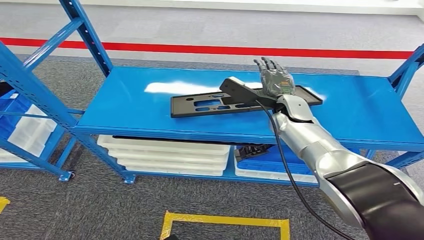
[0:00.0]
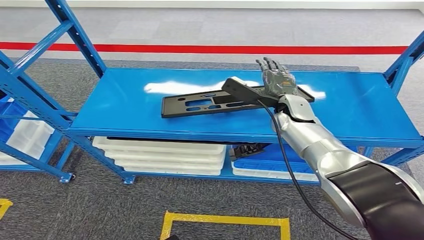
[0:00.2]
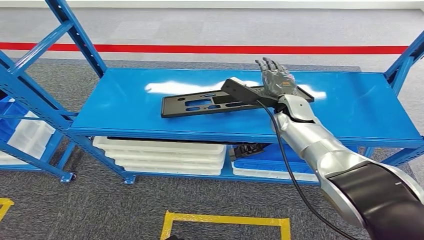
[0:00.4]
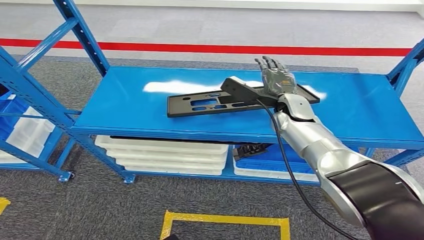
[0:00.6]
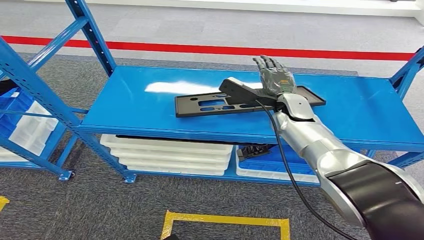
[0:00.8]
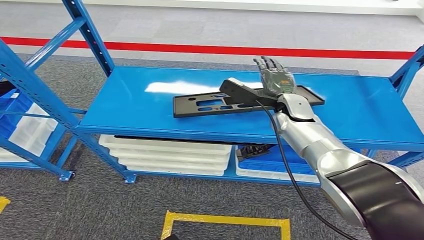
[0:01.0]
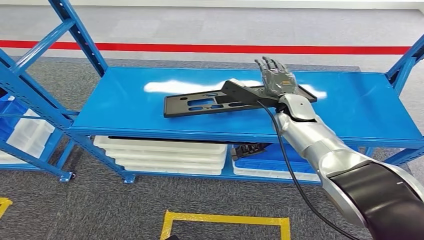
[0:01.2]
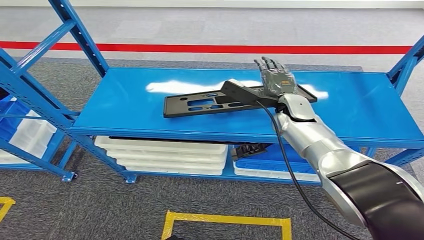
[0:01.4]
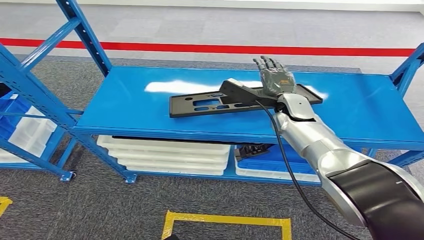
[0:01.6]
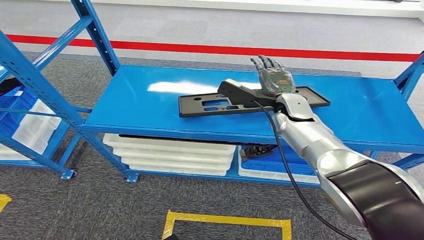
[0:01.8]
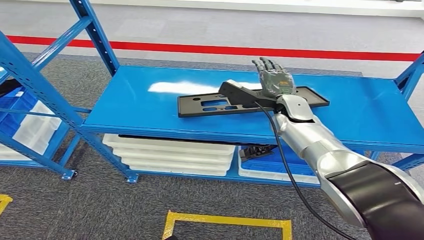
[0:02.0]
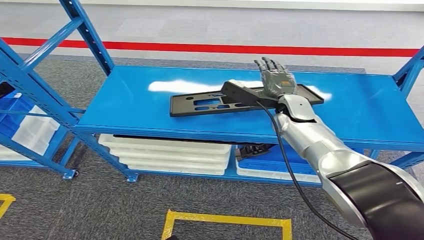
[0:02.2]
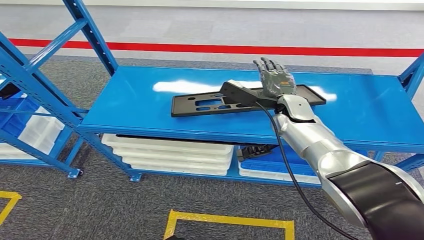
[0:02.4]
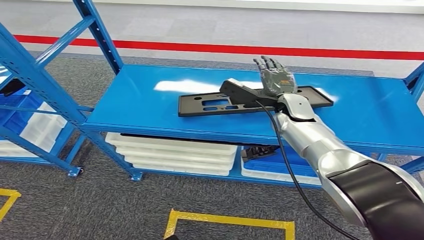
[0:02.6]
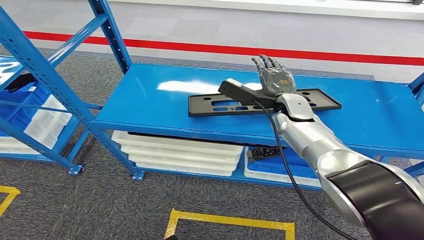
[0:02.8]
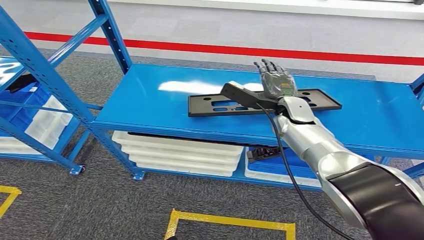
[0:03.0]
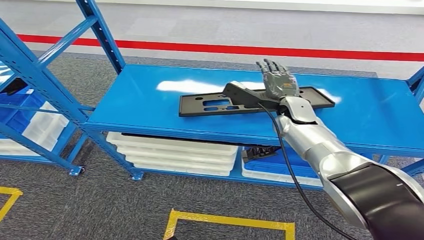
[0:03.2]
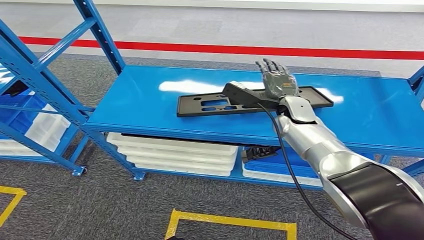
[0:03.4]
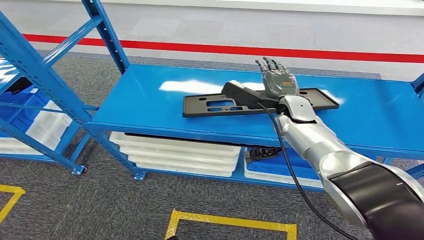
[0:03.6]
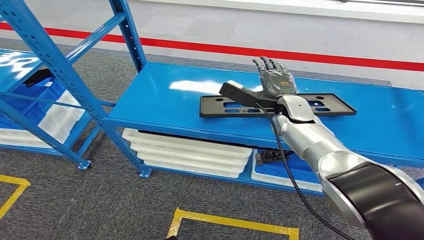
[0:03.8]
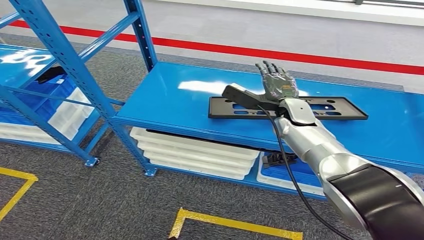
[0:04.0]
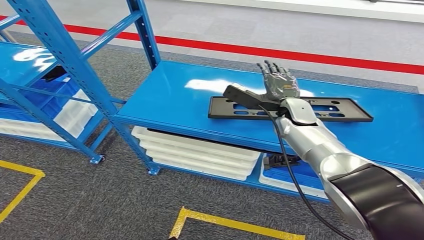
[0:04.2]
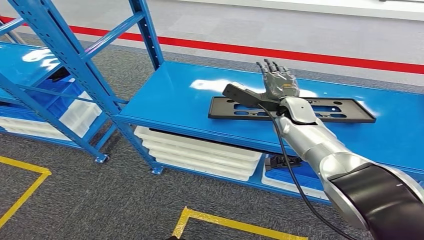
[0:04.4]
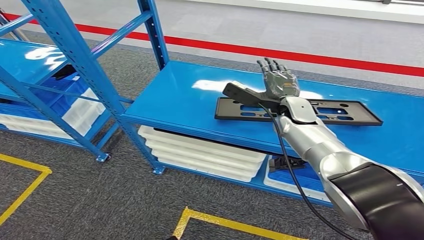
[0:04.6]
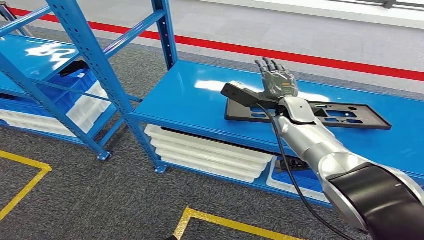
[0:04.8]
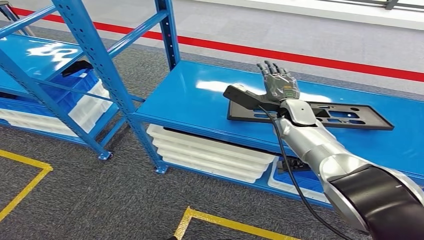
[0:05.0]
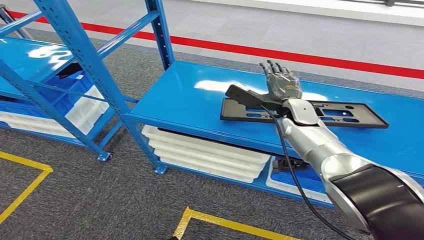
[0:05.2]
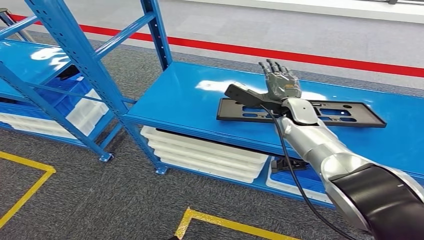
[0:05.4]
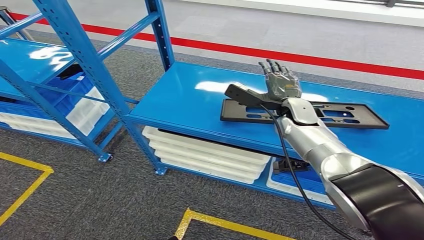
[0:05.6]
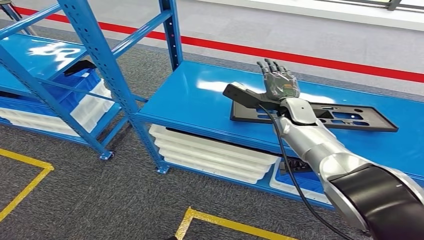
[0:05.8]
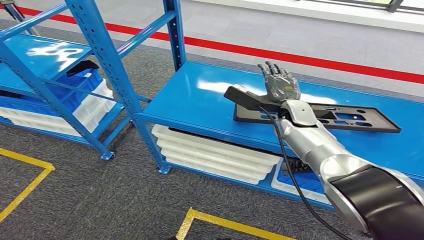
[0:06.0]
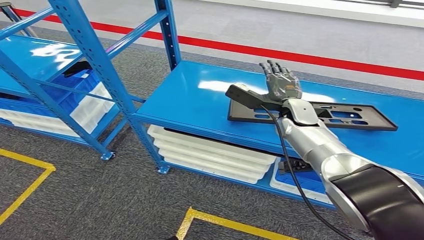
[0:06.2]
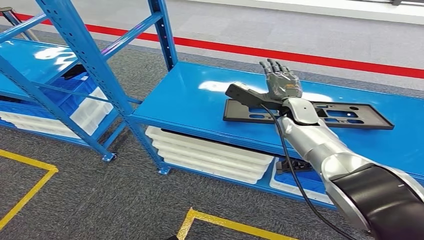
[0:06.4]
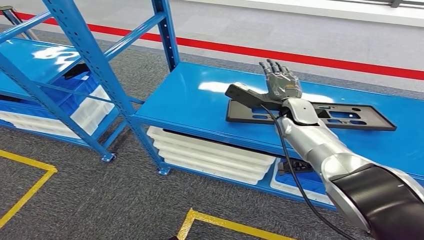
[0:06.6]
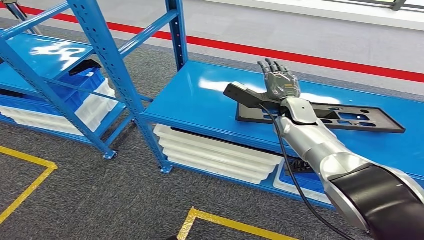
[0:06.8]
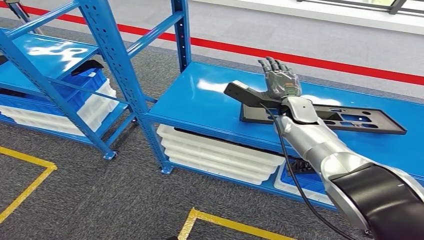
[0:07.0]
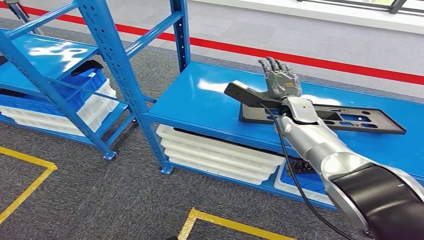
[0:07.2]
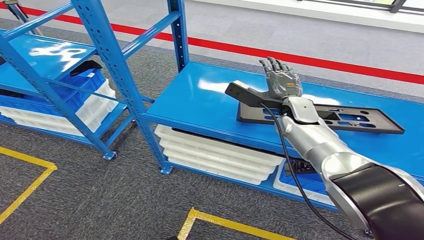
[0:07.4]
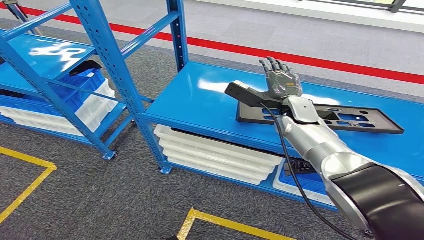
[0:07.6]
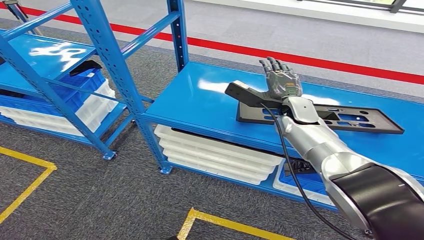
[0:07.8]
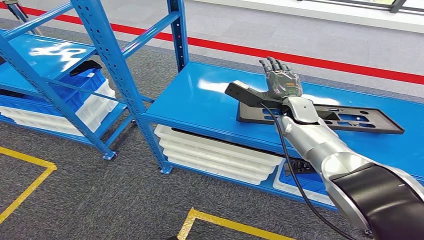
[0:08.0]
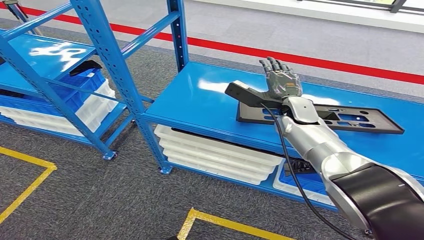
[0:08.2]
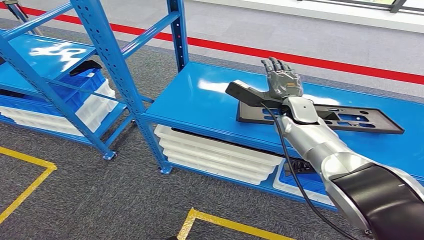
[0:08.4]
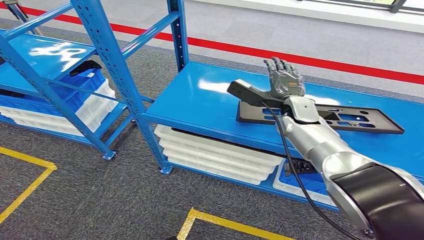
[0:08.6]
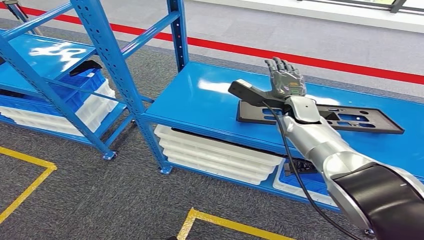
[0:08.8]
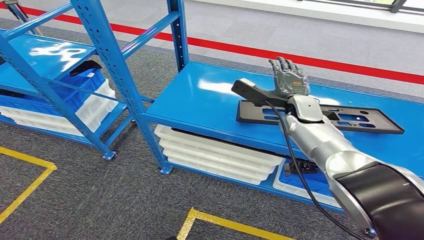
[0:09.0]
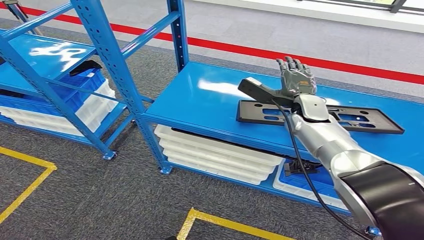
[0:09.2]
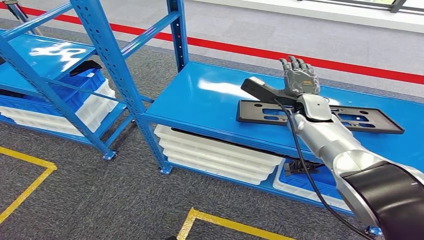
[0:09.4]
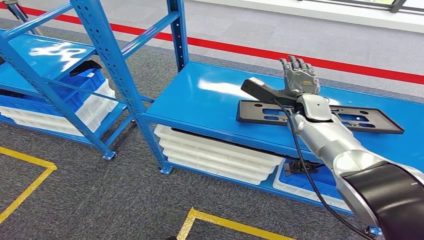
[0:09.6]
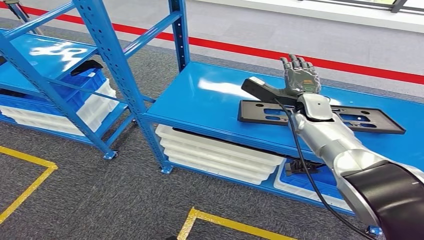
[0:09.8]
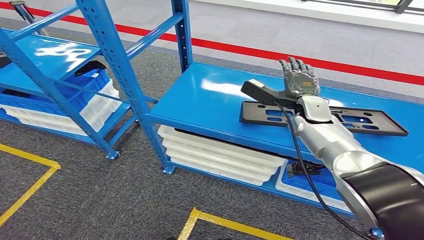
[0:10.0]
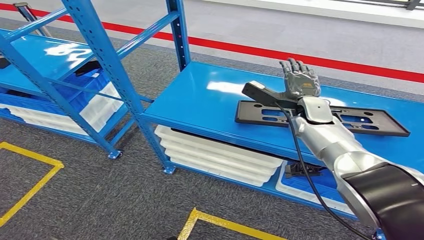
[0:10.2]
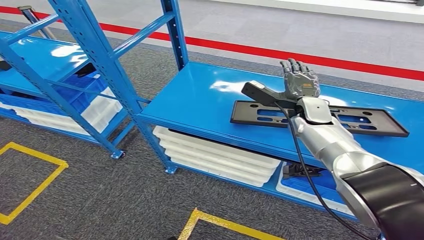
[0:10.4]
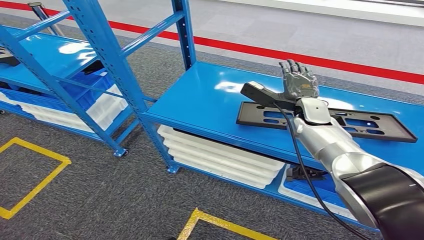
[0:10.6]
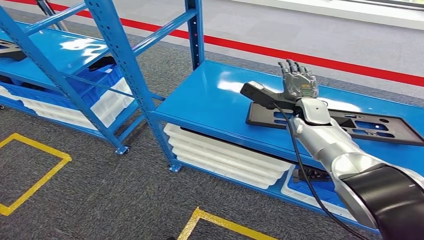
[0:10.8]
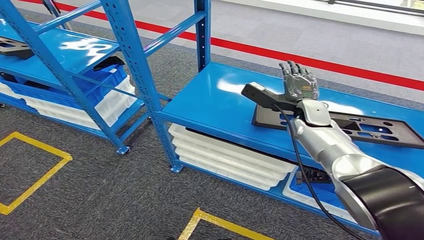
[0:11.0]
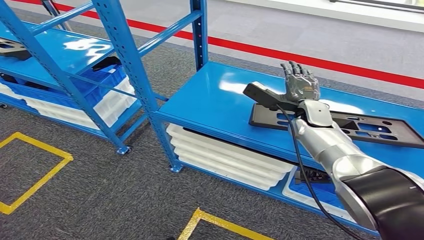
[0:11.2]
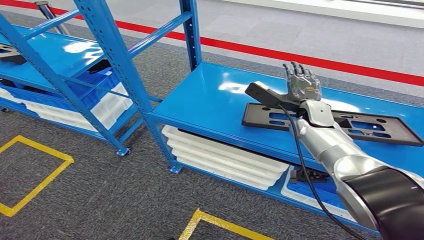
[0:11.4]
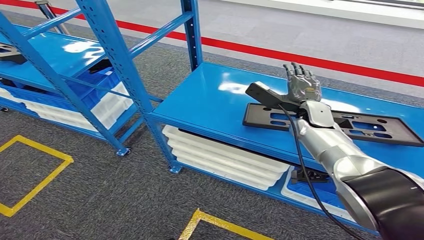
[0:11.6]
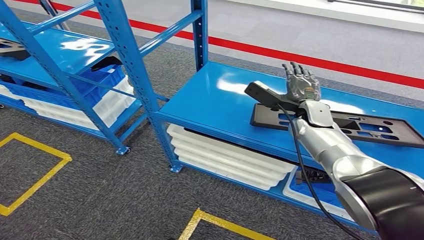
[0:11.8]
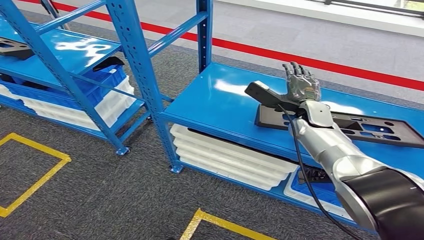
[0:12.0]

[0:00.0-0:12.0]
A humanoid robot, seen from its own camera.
0.0 to 1.6 s: The two hands keep their place.
6.0 to 7.6 s: Neither hand changes place.
7.6 to 9.0 s: The hands stay close to where they were, moving slightly.

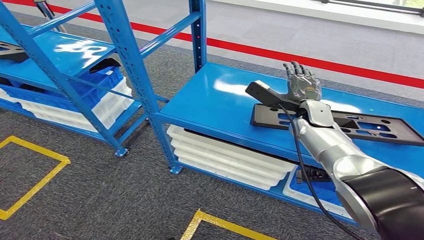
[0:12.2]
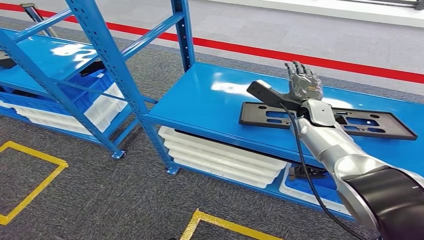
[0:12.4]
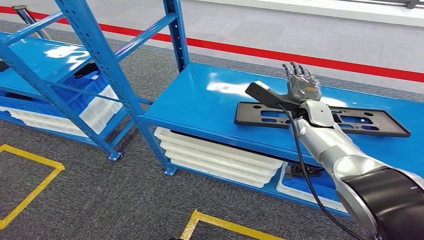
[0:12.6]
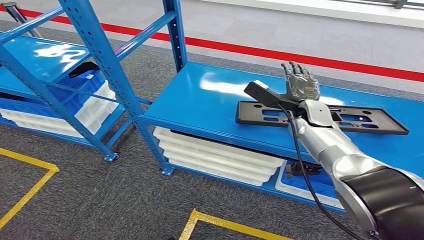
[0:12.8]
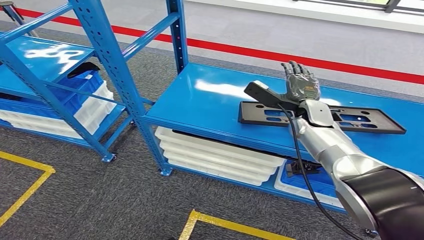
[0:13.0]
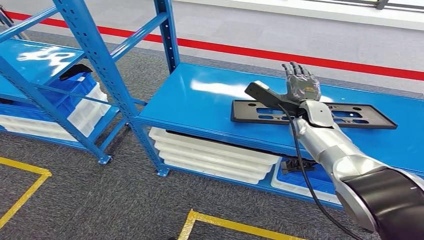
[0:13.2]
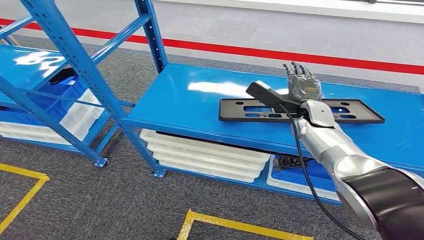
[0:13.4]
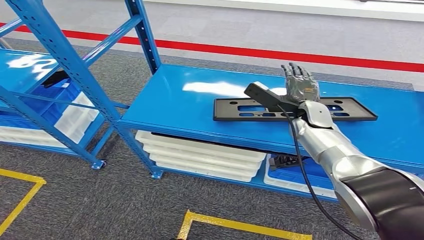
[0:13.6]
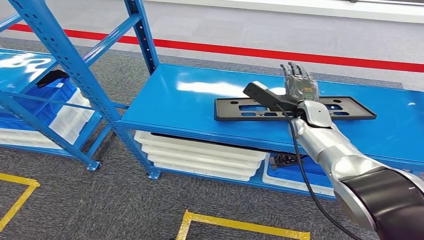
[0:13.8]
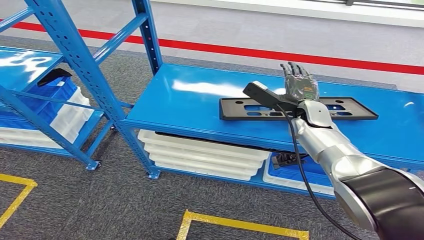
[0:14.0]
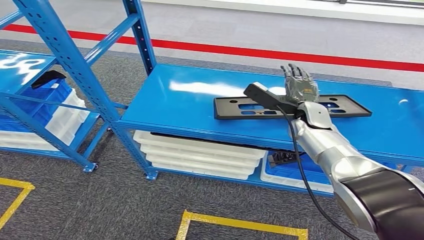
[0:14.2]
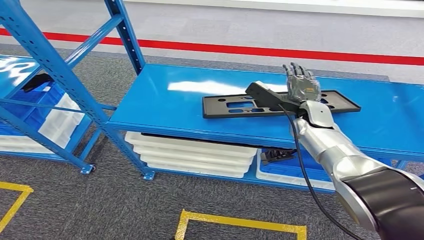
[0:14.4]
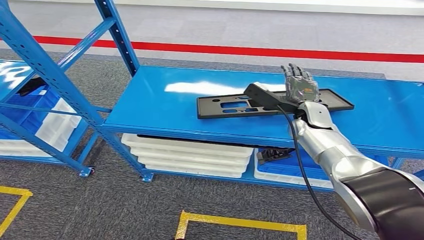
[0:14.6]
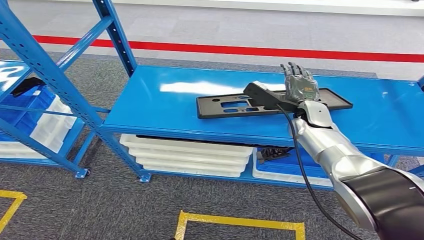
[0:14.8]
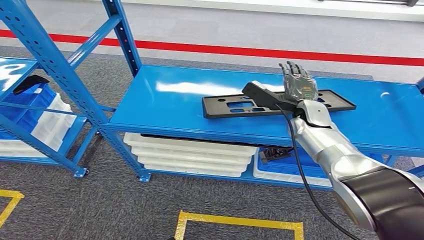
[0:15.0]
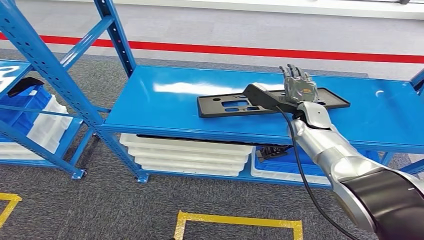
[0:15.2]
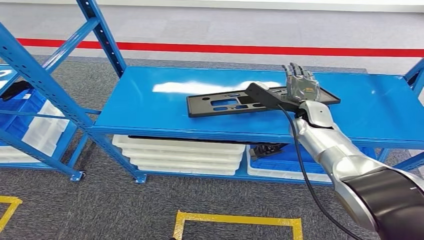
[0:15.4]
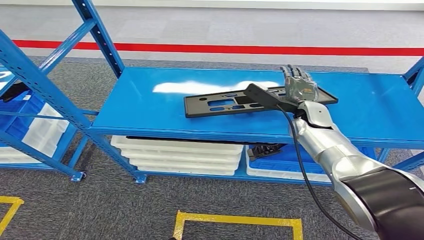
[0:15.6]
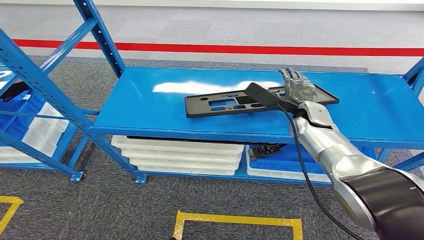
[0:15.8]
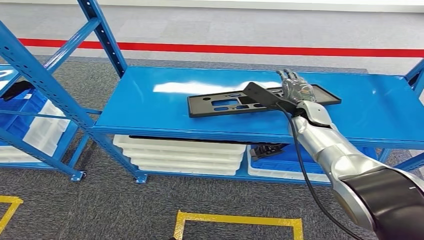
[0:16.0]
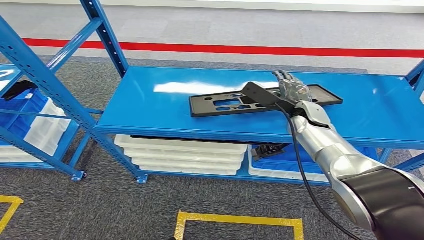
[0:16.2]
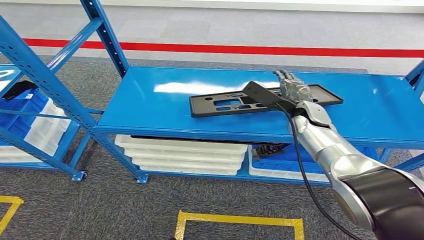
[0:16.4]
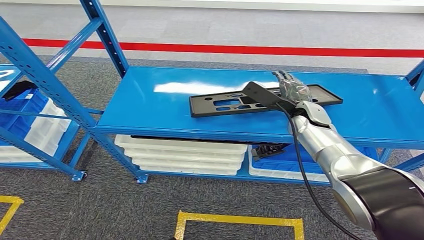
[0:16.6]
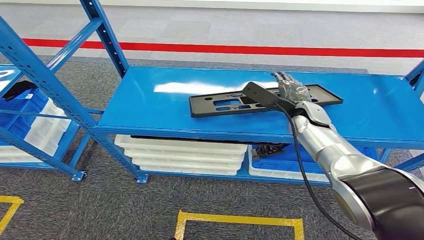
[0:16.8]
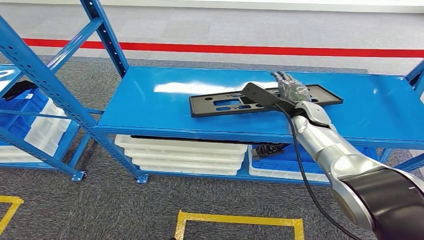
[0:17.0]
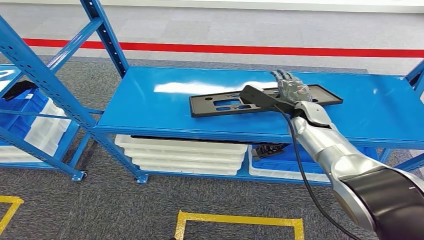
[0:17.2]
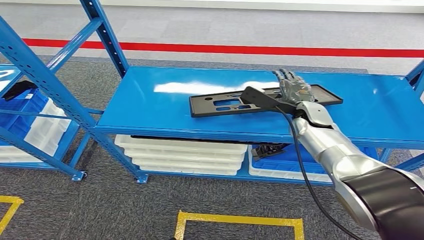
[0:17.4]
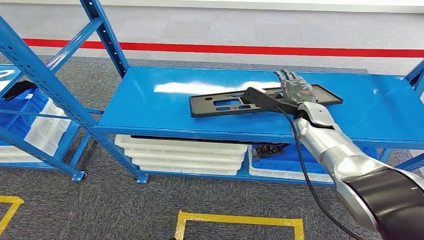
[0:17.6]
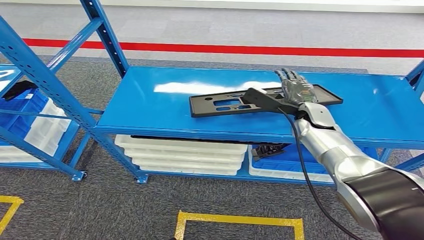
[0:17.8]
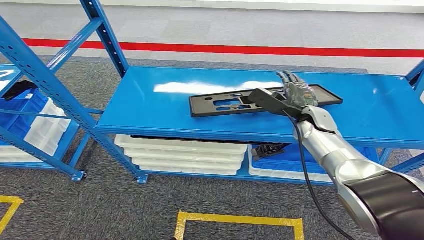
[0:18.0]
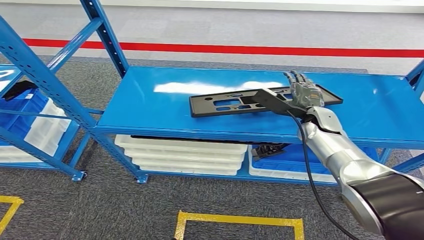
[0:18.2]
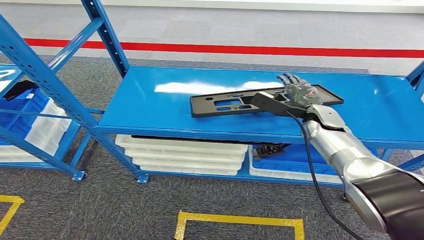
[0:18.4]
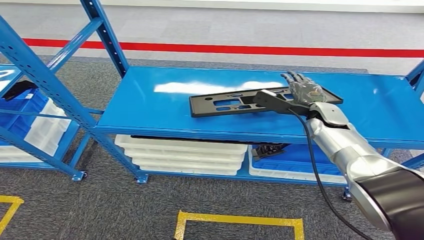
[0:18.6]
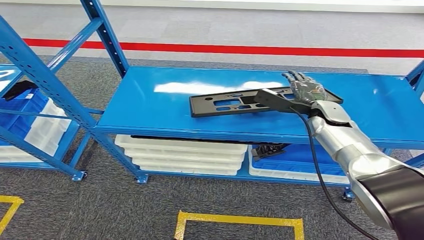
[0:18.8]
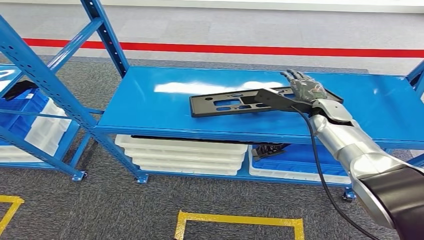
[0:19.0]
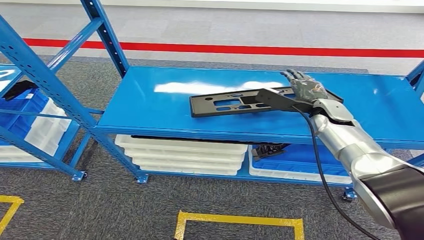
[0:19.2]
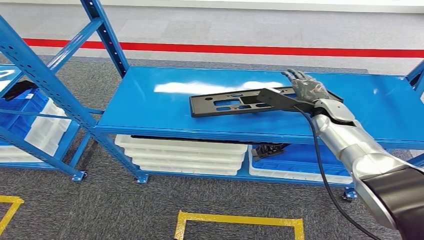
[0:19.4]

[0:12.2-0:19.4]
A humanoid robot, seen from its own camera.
16.6 to 19.4 s: The hands stay close to where they were, moving slightly.
